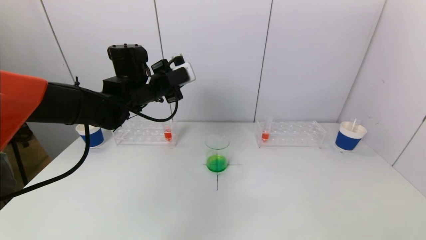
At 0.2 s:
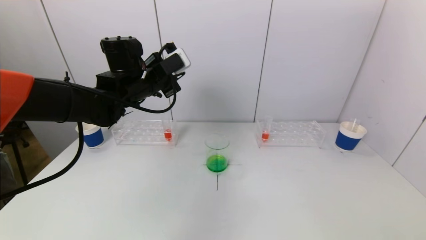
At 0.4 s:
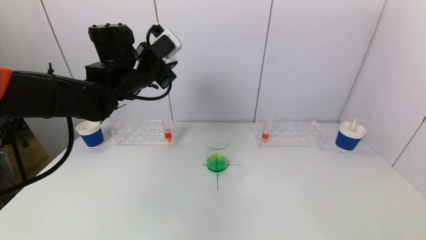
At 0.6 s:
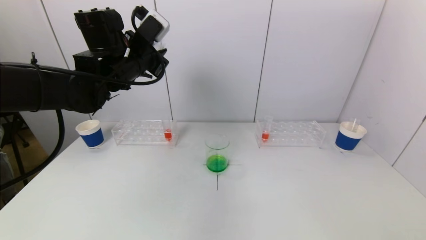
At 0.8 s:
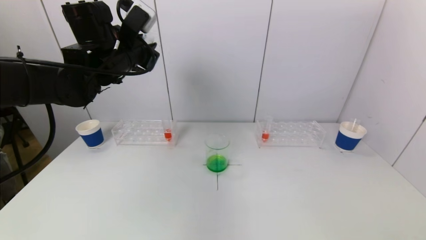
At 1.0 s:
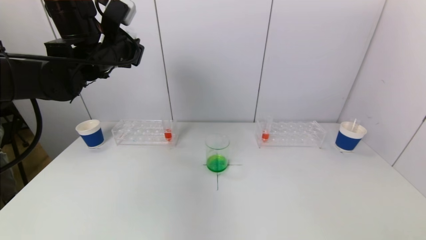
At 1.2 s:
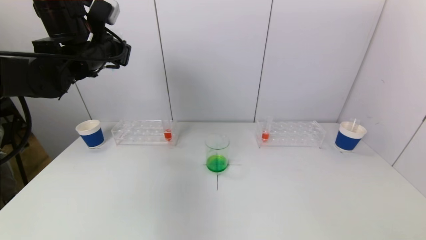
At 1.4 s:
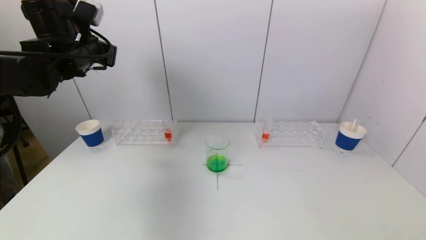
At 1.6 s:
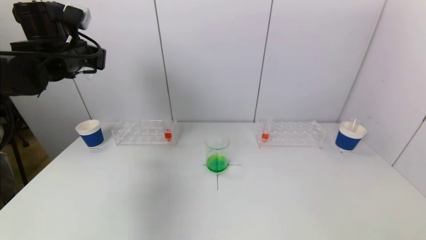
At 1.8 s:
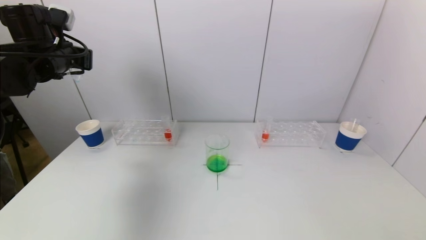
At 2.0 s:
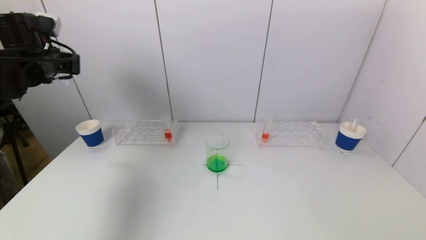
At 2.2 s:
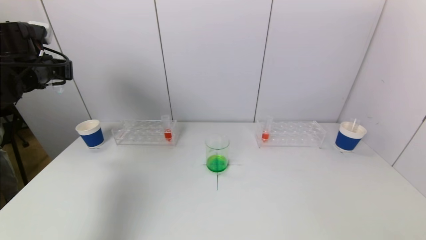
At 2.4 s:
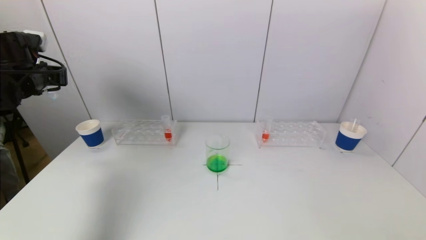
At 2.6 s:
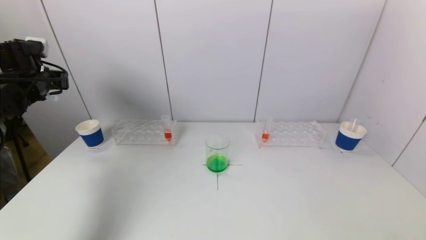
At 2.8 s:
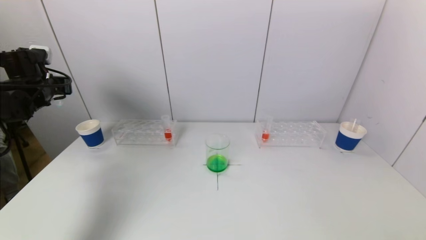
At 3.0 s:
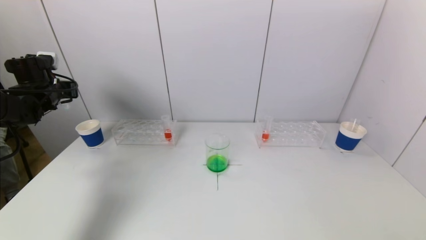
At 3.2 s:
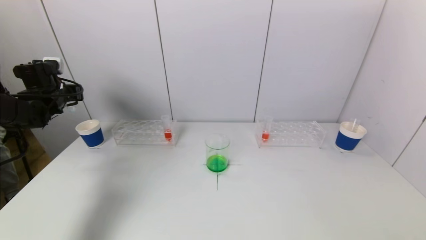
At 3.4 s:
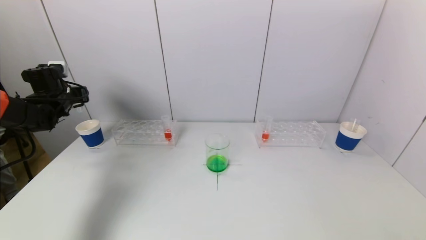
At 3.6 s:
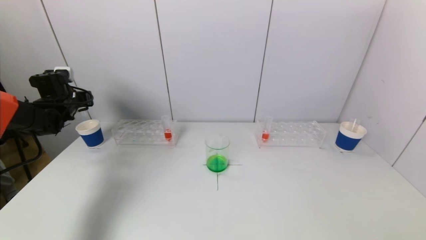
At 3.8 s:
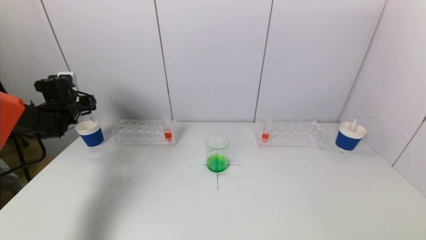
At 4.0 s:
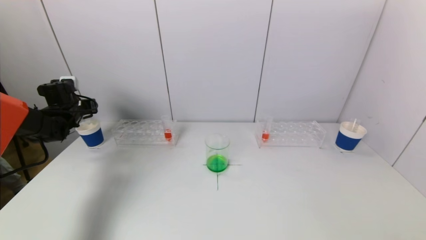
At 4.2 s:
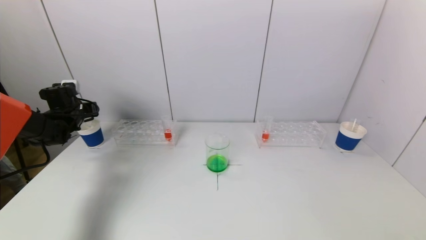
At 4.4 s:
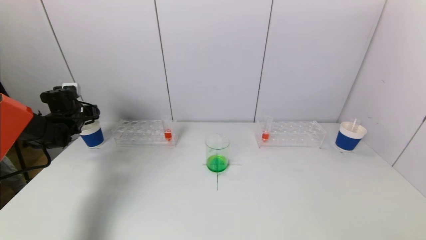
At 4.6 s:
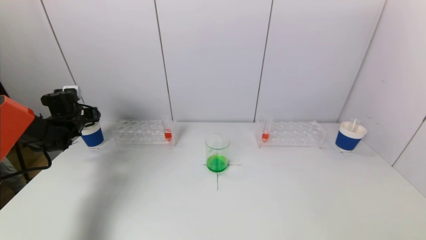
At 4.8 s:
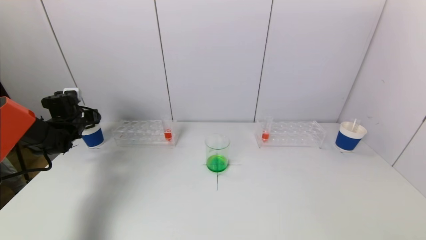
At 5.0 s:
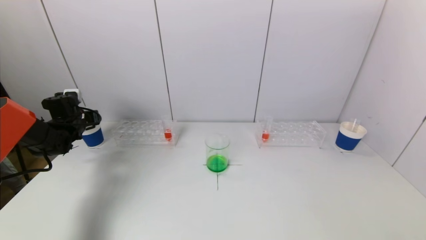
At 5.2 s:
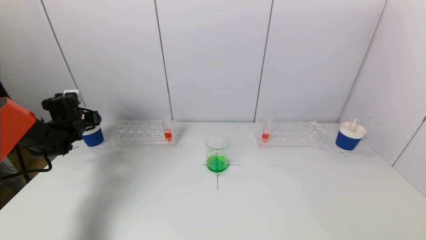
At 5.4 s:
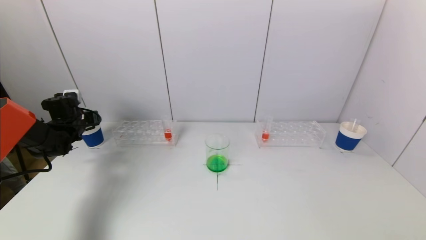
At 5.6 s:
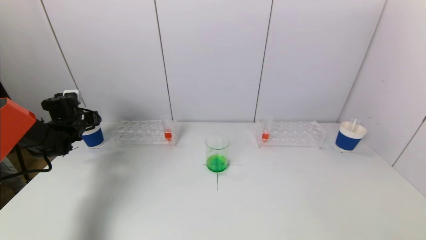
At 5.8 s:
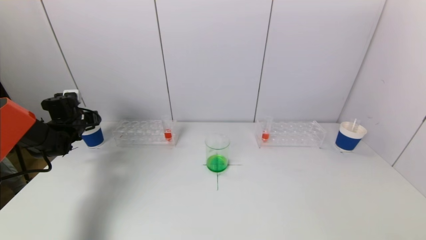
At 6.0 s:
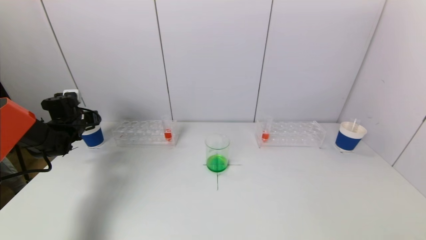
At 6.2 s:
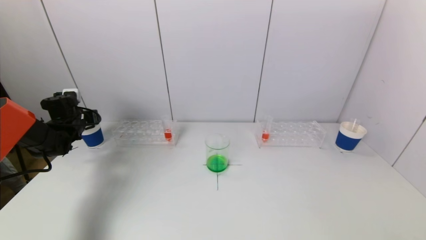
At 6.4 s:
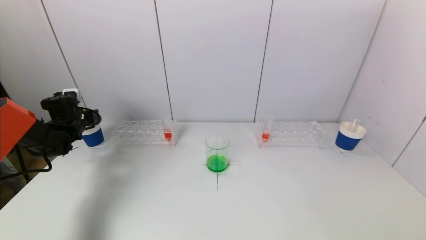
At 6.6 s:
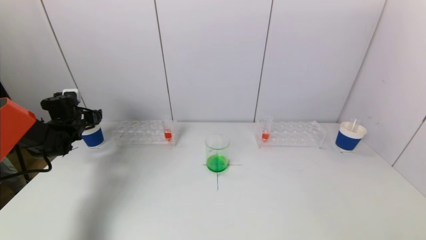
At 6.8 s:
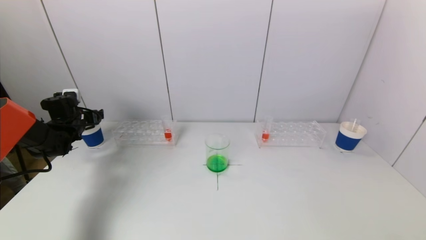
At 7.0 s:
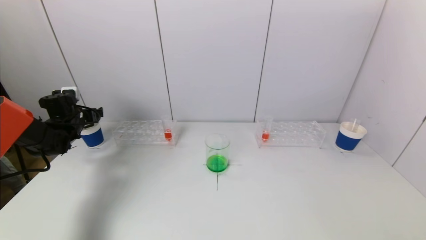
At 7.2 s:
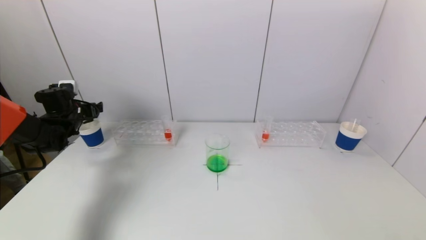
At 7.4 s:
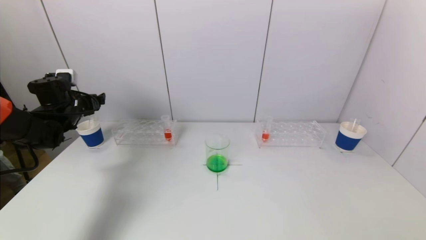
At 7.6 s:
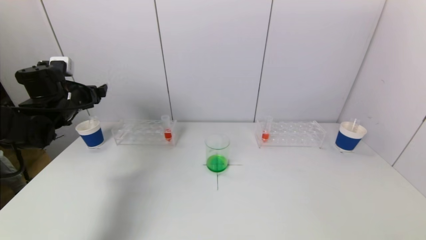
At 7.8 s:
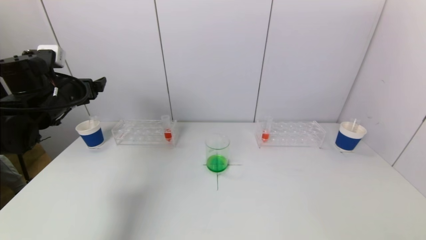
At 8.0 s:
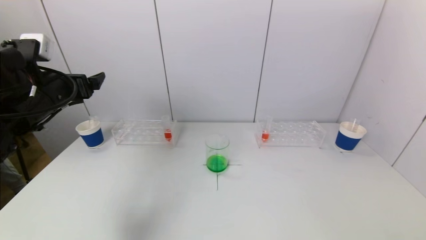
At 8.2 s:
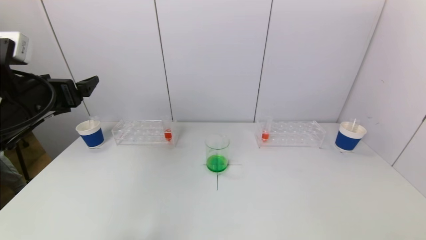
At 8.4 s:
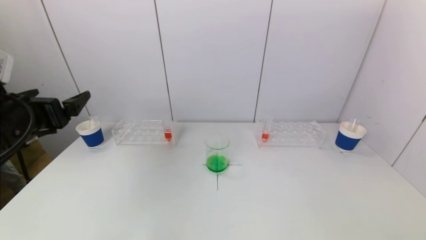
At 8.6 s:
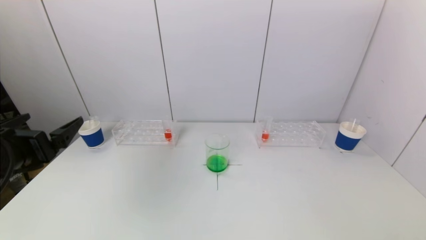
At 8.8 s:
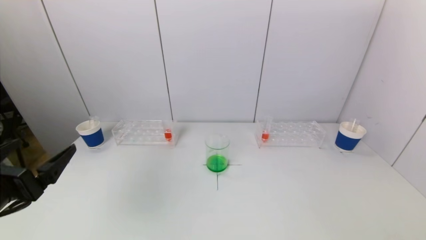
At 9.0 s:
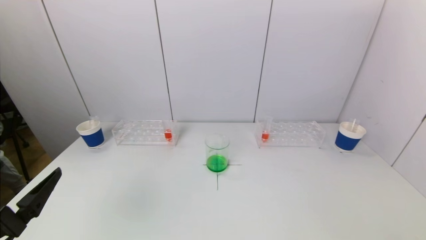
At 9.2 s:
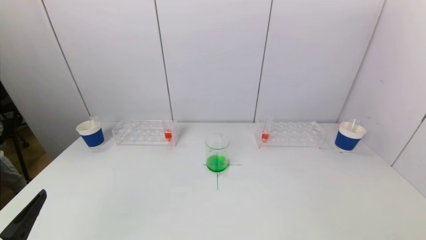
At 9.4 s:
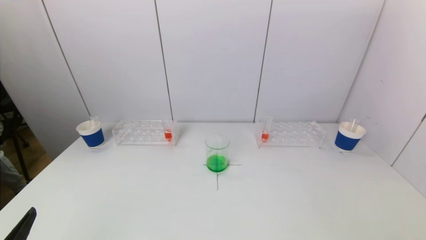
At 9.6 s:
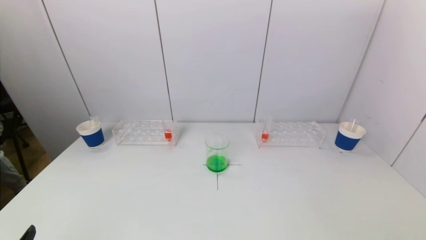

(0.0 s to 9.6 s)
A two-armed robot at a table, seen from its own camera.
Task of the whole recording: pick up a test tube with pigment on left test tube rack and a test tube with pigment on right test tube rack by grippers and pour them into the beaker.
Step, 0.0 s - 7.4 s: Place the test tube into the paper cup with the left gripper.
0.0 s - 1.6 s: The left gripper moves to the left and upward, approximately 15 cm.
1.6 s - 3.2 s: The left gripper heads to the left, downward and forward, covering approximately 15 cm.
3.2 s - 4.8 s: The left gripper is displaced downward by some 10 cm.
6.4 s - 8.0 s: The left gripper shifts some 25 cm backward, upward and to the right, and opens its fingers.
8.0 s - 9.6 s: The left gripper goes approximately 30 cm backward and downward.

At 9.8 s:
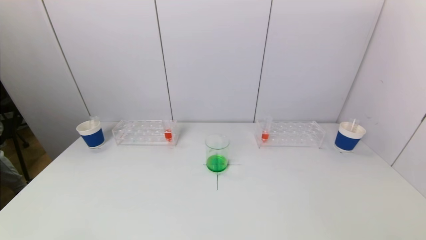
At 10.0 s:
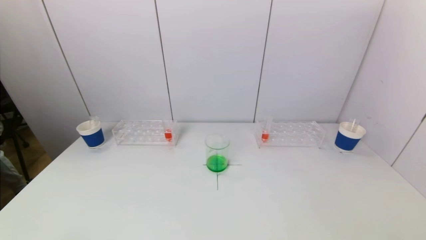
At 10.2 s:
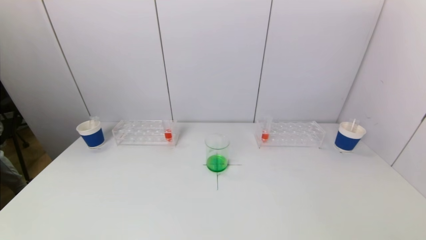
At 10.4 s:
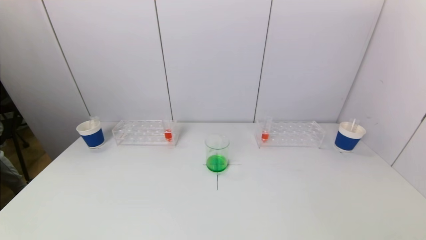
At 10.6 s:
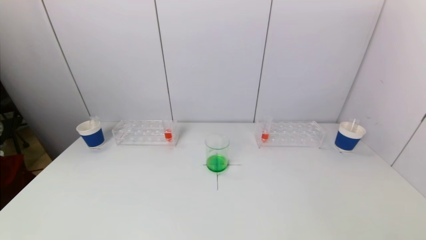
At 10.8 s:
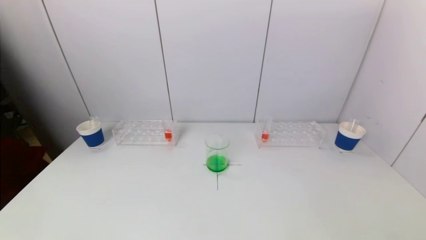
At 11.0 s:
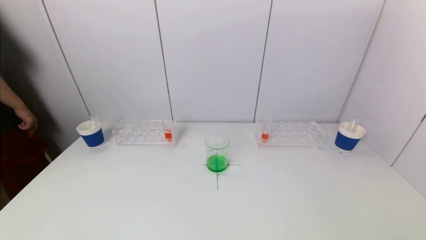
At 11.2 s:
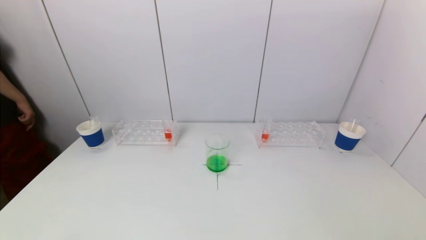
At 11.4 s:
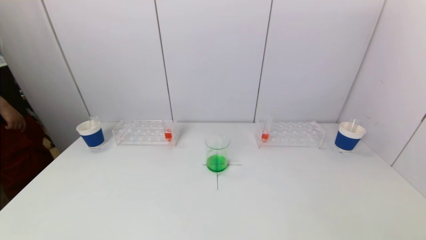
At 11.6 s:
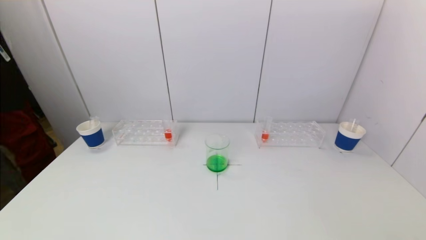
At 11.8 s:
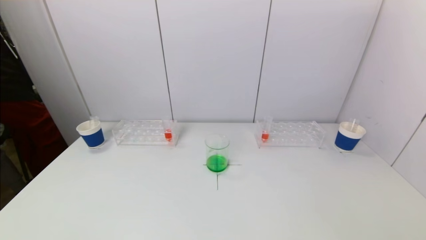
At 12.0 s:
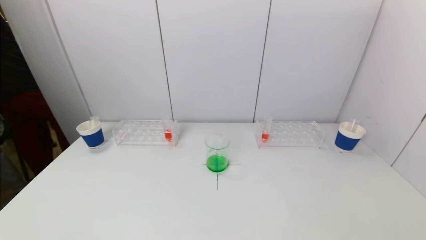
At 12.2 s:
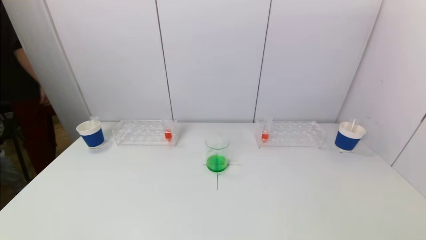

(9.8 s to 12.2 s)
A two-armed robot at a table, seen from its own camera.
Task of the whole recording: pick up a test tube with pigment on left test tube rack and a test tube with pigment on right test tube rack by grippers and pour them into the beaker.
9.8 s - 11.0 s: The grippers stay close to where they were, moving slightly.
11.0 s - 12.2 s: Neither gripper changes place.
